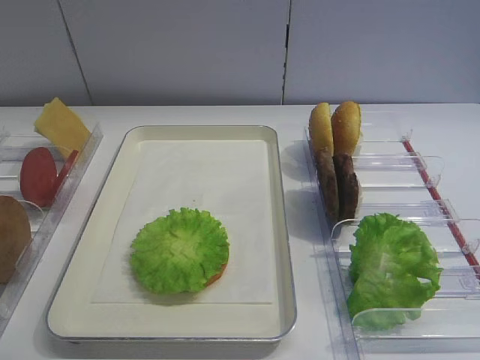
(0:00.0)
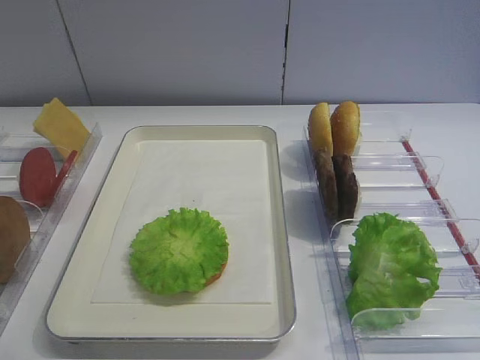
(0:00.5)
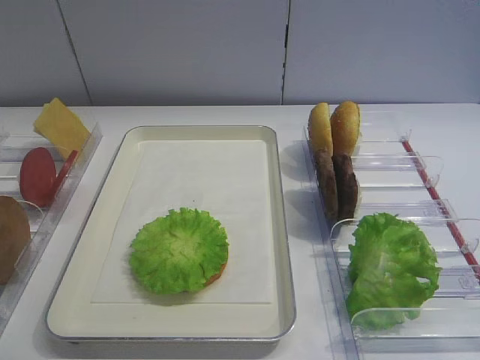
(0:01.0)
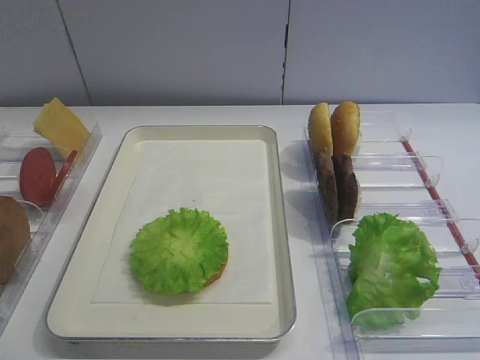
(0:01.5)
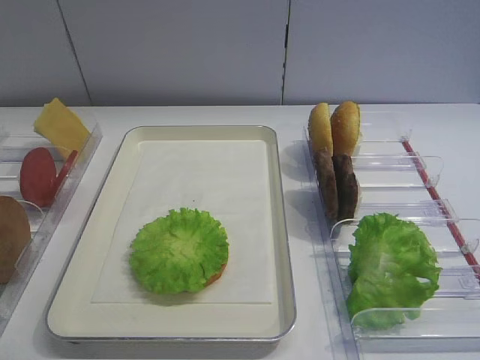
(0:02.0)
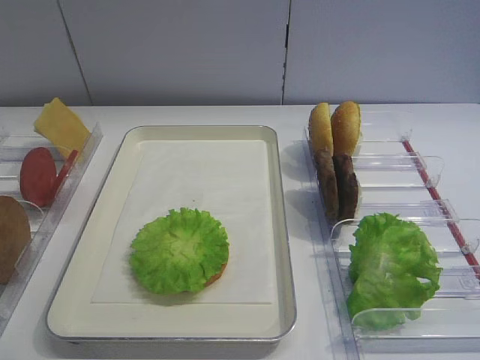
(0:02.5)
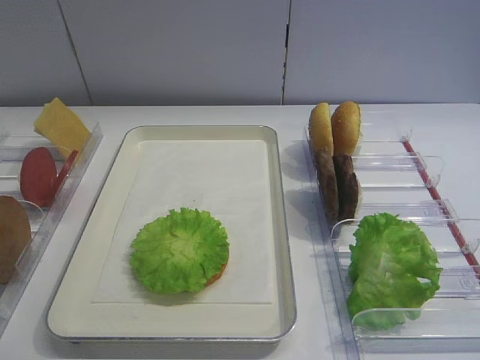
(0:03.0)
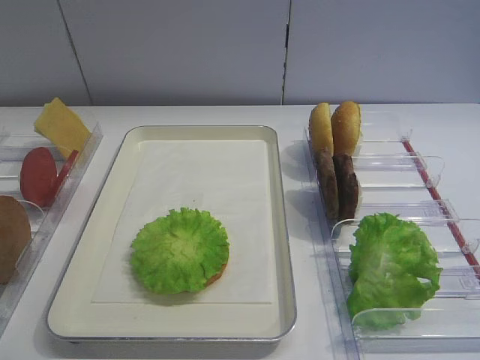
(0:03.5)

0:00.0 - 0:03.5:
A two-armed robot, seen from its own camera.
0:02.0 - 0:03.5: The two grippers keep their place.

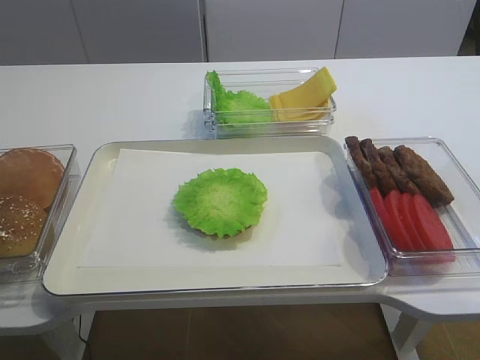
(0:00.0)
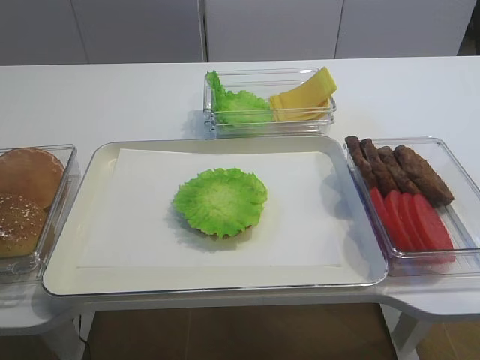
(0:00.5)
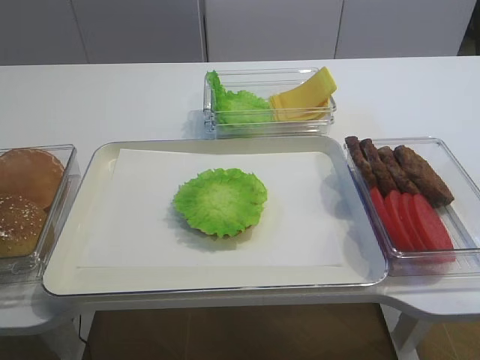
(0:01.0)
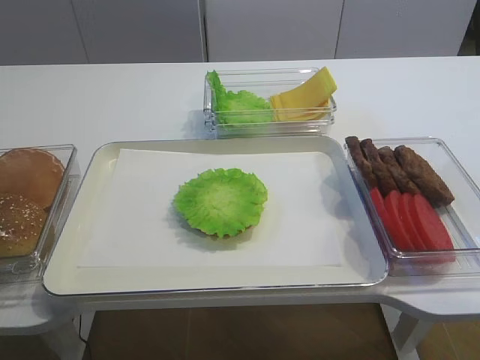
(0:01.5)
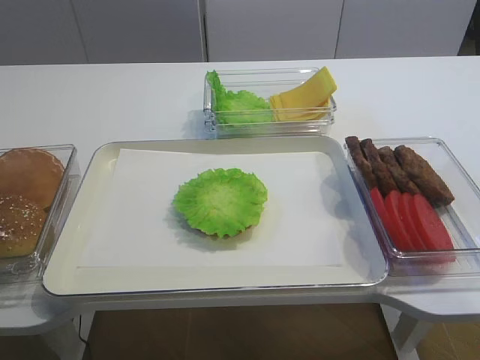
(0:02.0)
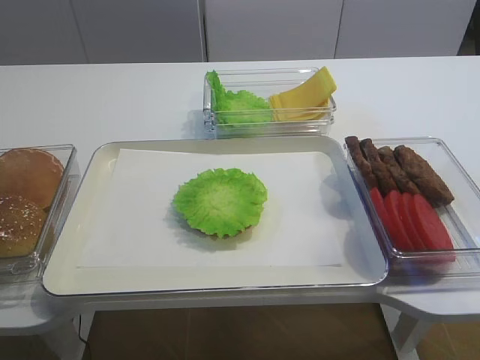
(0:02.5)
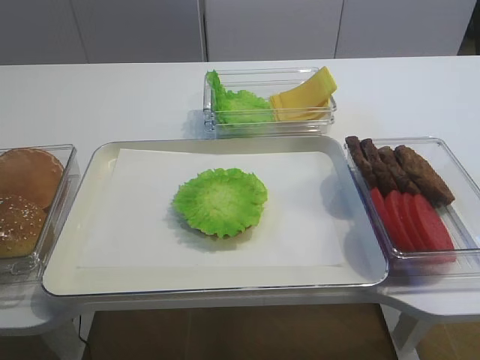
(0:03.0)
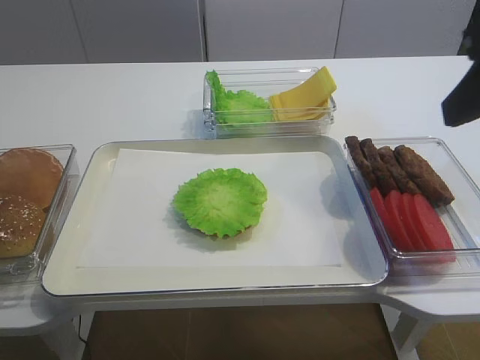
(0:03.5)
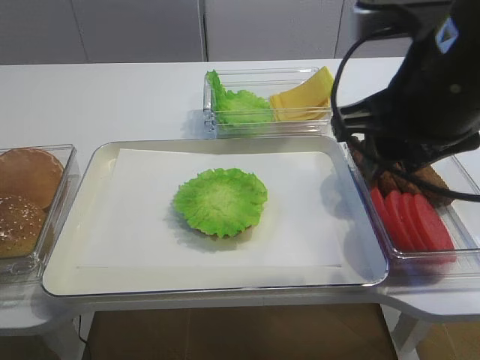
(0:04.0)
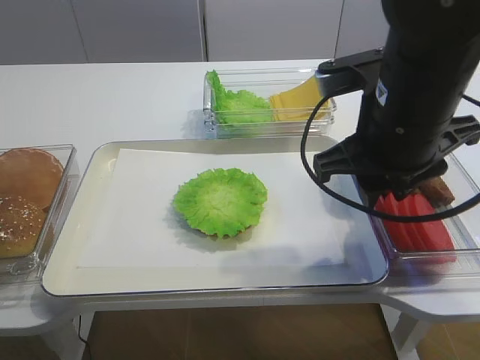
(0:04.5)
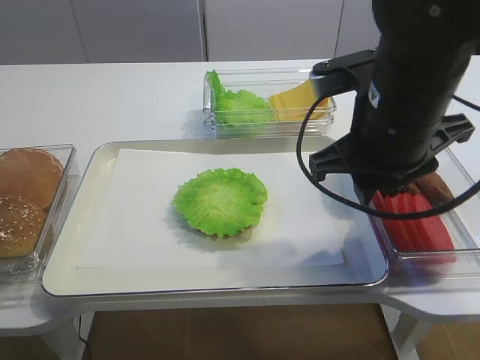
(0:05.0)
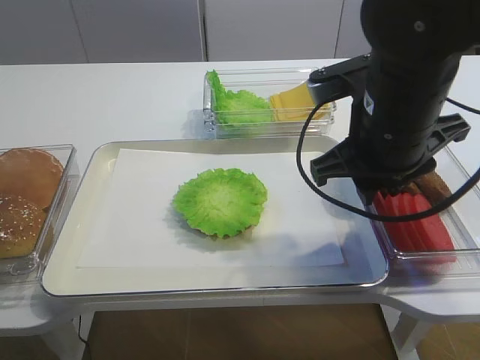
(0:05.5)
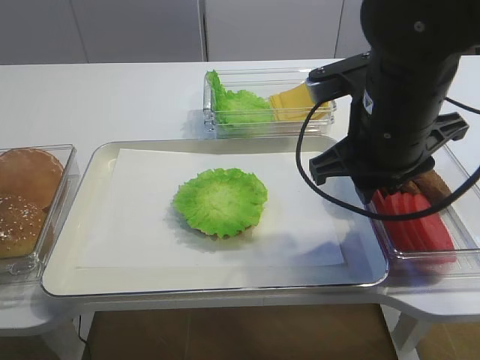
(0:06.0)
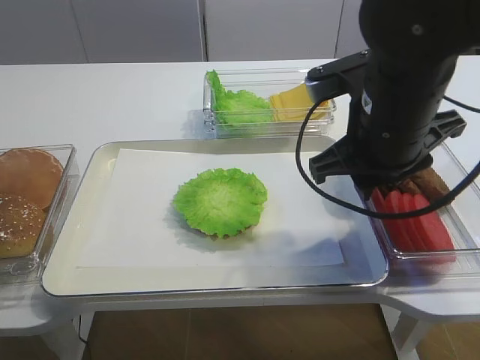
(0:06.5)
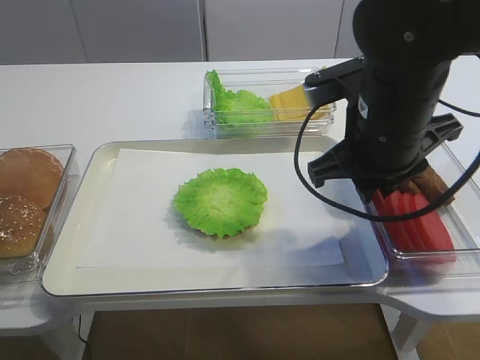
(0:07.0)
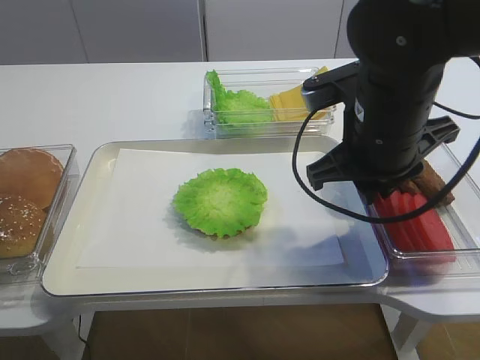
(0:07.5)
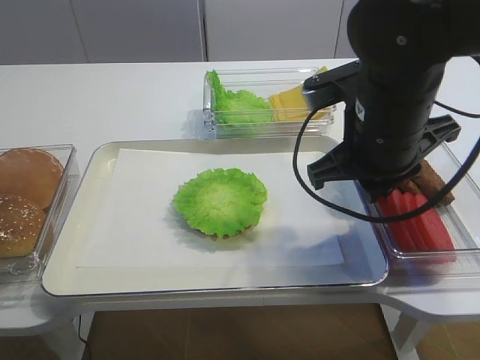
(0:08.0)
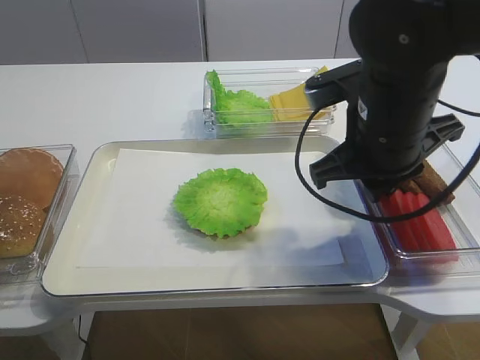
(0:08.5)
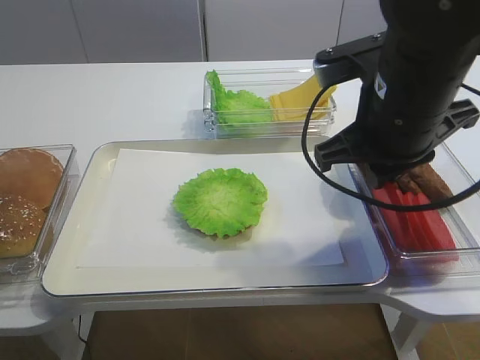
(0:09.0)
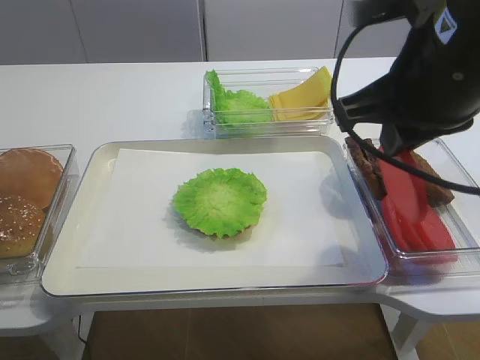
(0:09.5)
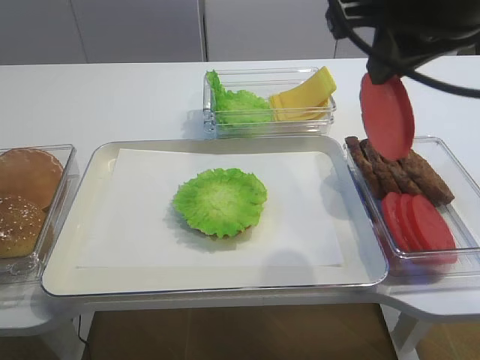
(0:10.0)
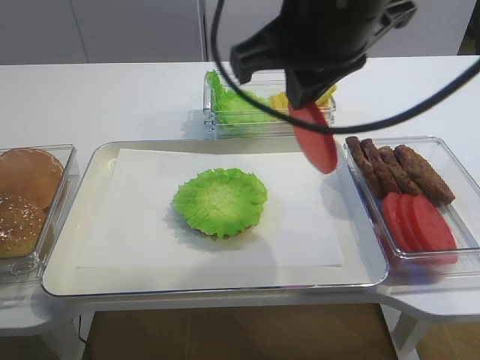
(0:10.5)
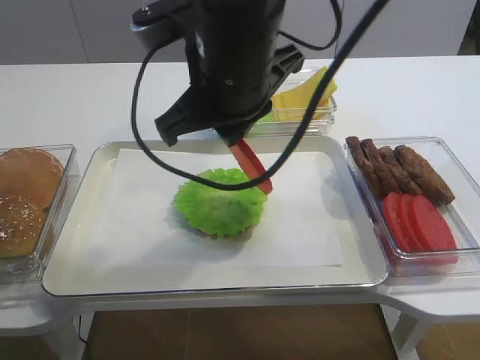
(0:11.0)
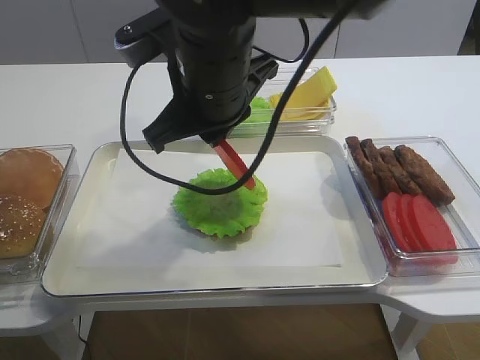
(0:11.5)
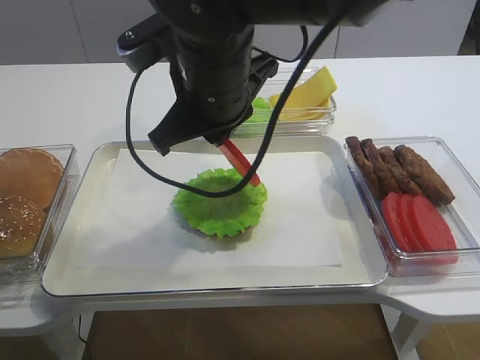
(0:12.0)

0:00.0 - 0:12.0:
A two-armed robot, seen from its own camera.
Step, 0:00.0 - 0:09.0: Pick up the tomato slice with the right gripper.
0:02.0 - 0:04.0: The right gripper shifts about 25 cm forward and to the left.
0:04.0 - 0:06.0: The right gripper moves downward, approximately 5 cm.
0:06.0 - 0:08.0: The right gripper closes its fingers.
0:08.0 - 0:10.0: The right gripper travels upward by some 15 cm.
0:10.0 - 0:12.0: The right gripper shifts some 20 cm to the left, downward and forward.

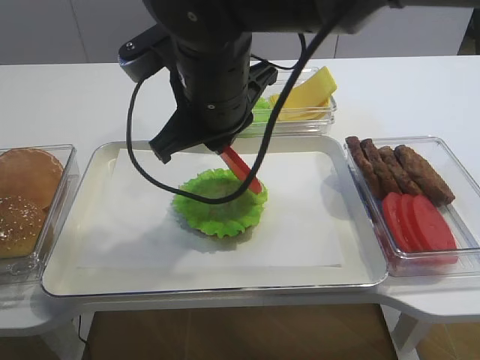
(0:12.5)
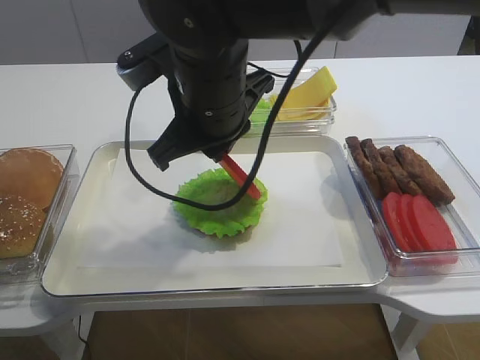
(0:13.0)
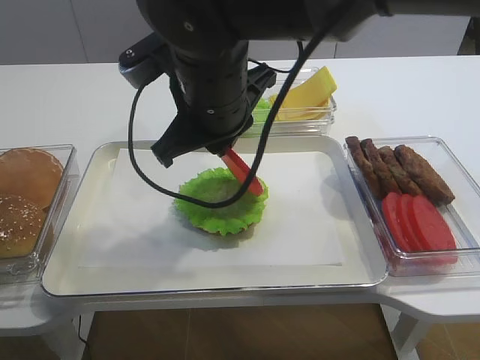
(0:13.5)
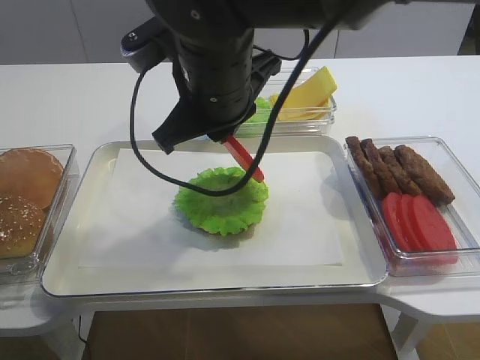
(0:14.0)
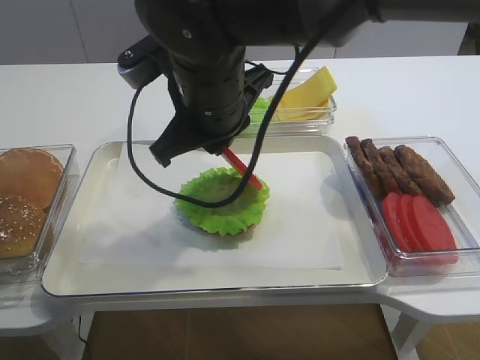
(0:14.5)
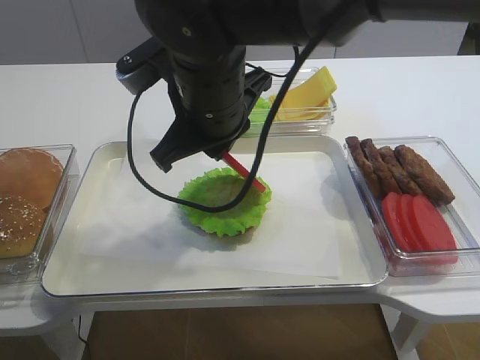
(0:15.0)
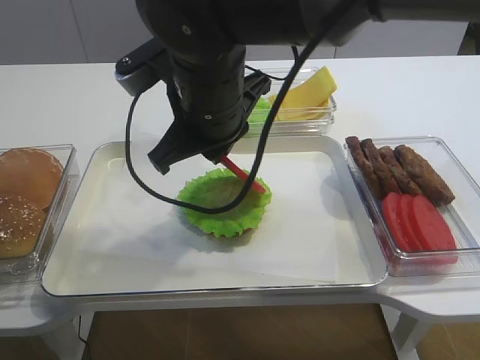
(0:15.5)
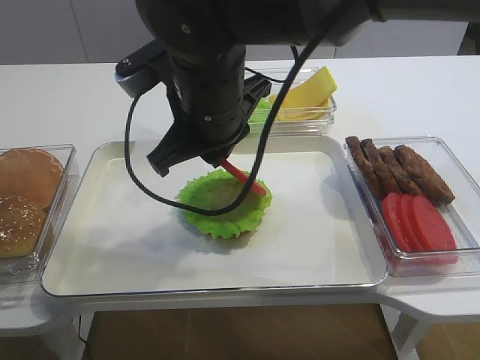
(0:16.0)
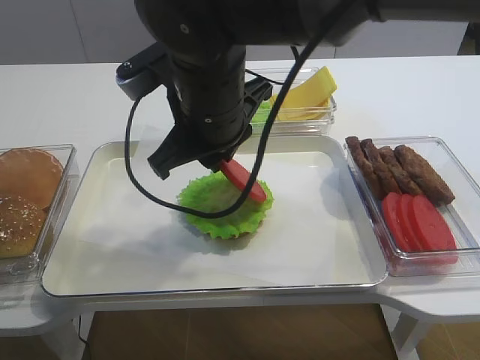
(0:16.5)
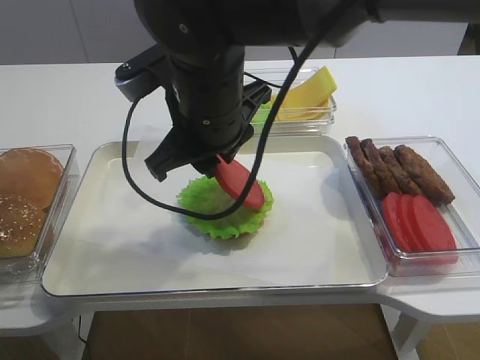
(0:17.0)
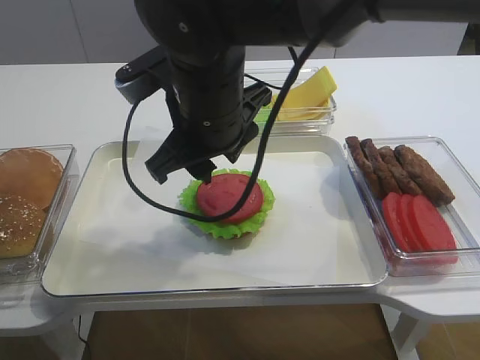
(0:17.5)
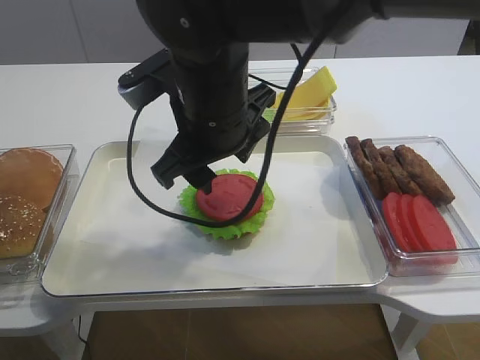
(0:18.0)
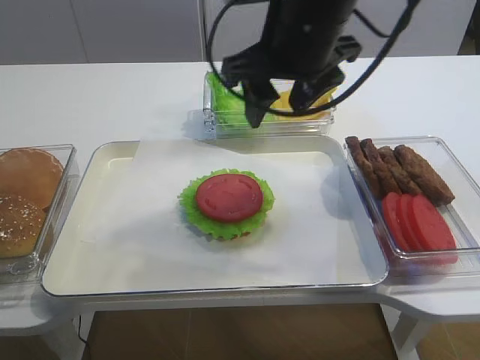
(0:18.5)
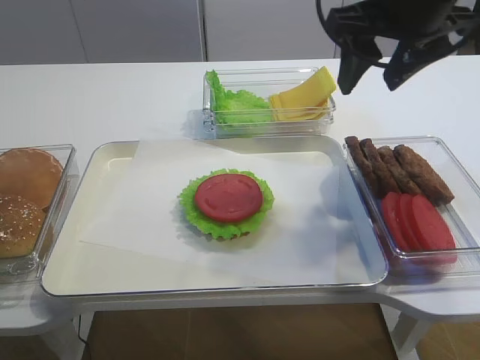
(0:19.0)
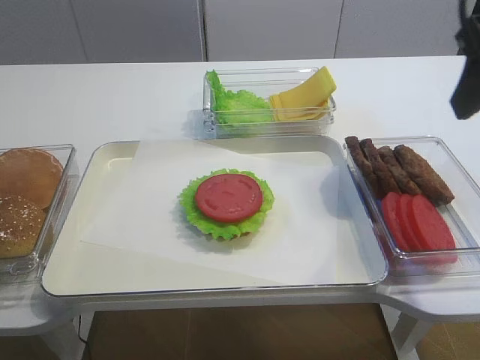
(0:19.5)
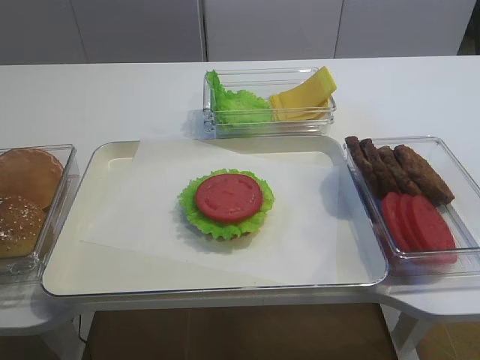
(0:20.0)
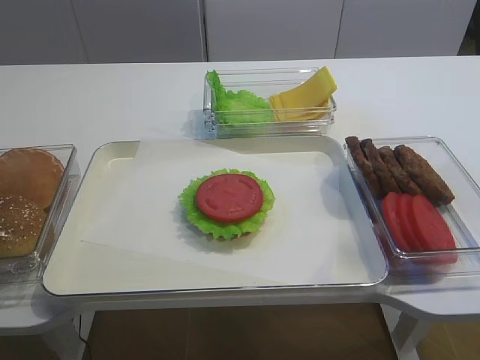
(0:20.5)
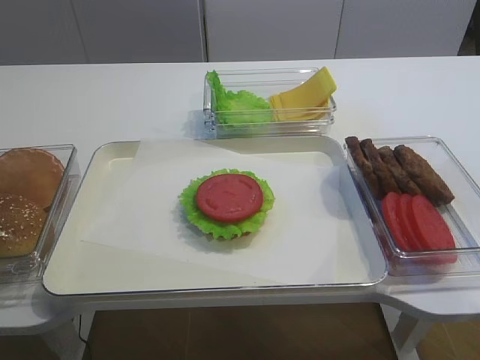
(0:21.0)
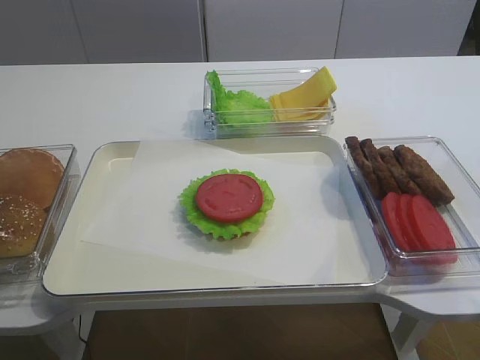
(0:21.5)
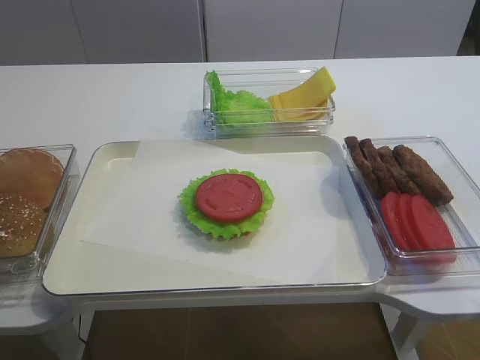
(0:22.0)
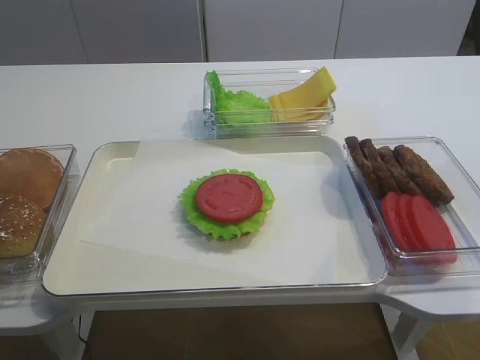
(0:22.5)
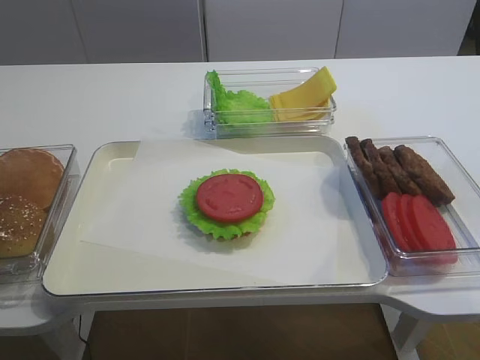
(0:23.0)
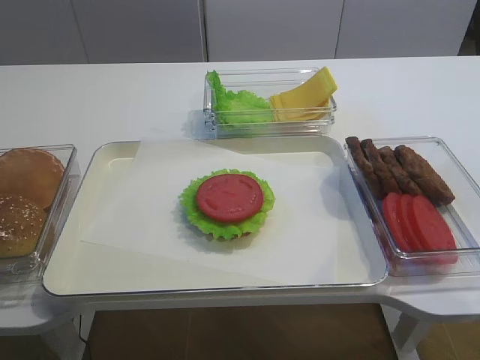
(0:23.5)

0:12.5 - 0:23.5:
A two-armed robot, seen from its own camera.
Step, 0:12.5 - 0:17.5: Place the tomato slice on the lettuce leaf with the right gripper.
0:12.5 - 0:16.0: The two grippers keep their place.
0:16.0 - 0:18.0: The right gripper opens up.
0:18.0 - 0:20.0: The right gripper travels to the right and backward by some 30 cm.
